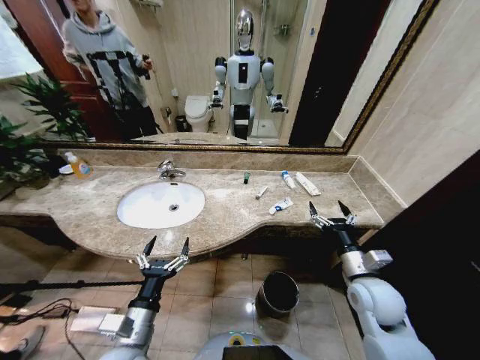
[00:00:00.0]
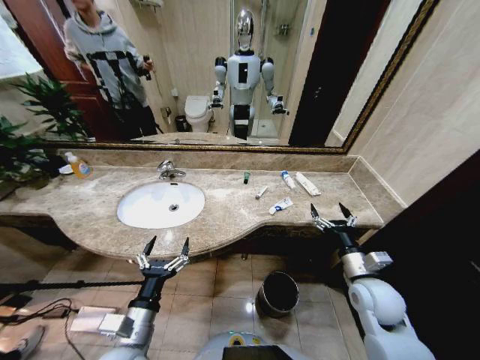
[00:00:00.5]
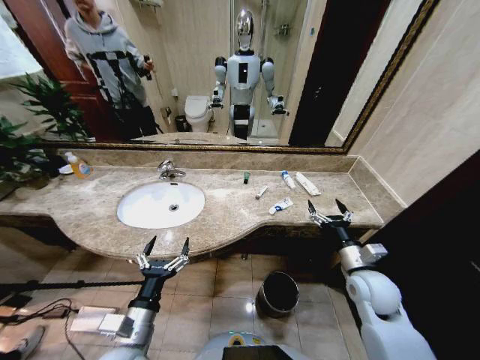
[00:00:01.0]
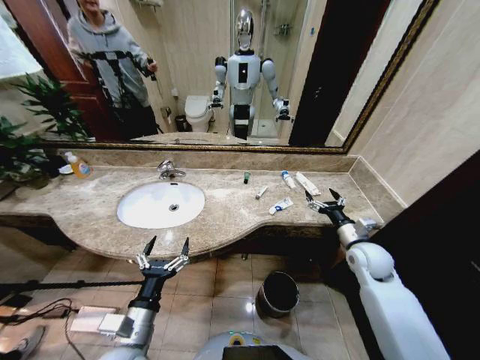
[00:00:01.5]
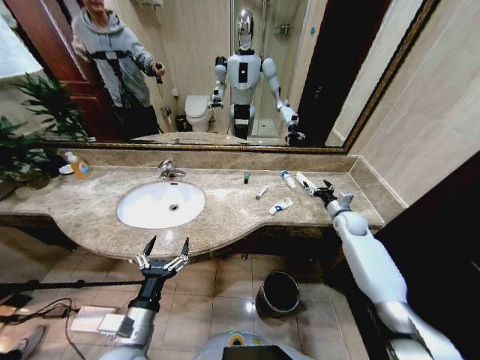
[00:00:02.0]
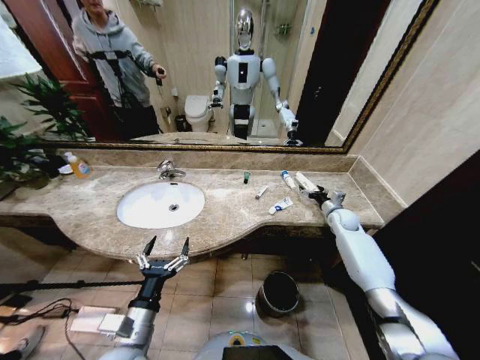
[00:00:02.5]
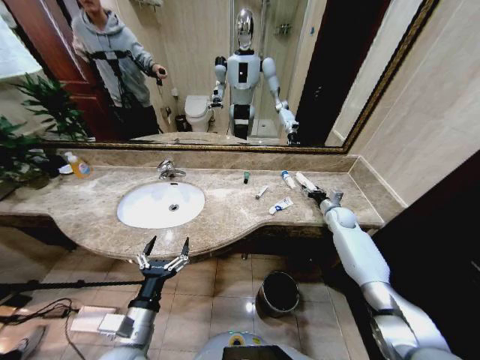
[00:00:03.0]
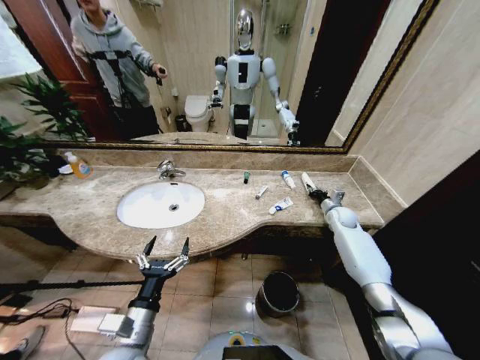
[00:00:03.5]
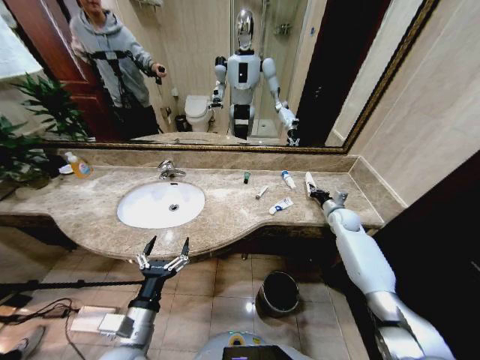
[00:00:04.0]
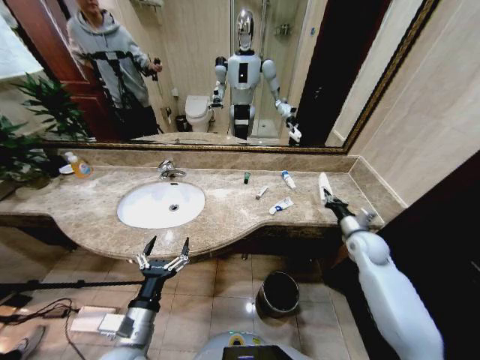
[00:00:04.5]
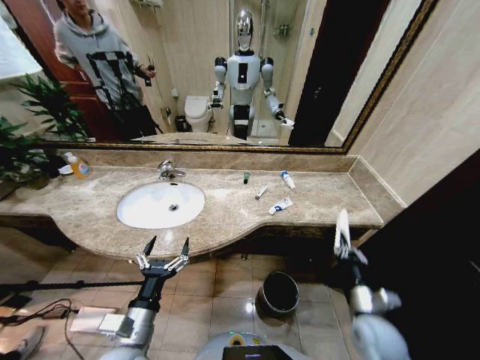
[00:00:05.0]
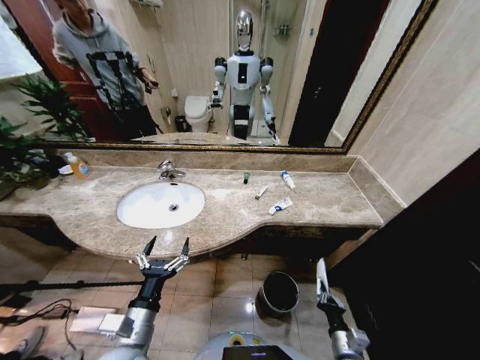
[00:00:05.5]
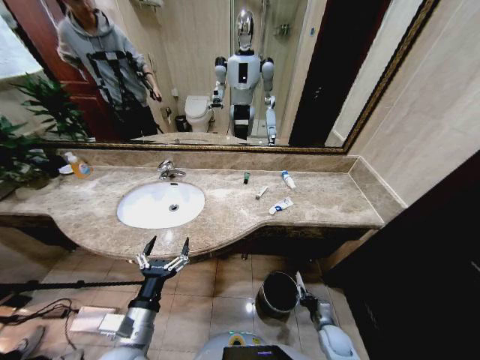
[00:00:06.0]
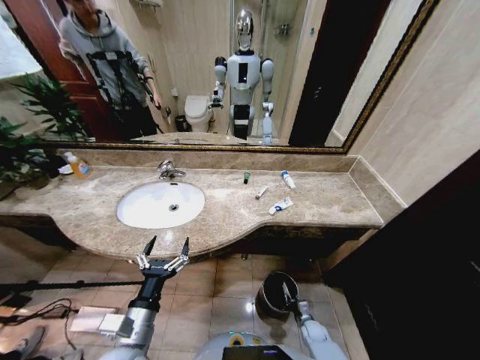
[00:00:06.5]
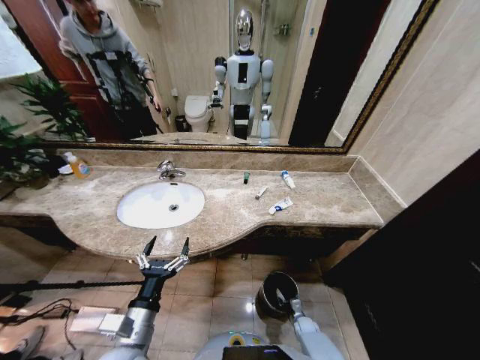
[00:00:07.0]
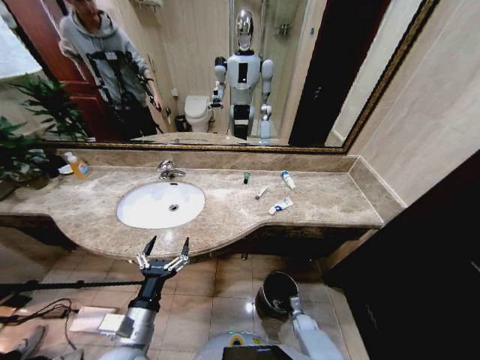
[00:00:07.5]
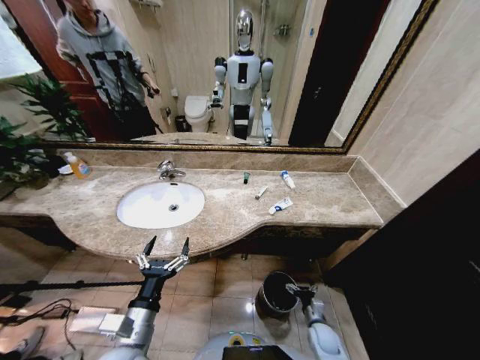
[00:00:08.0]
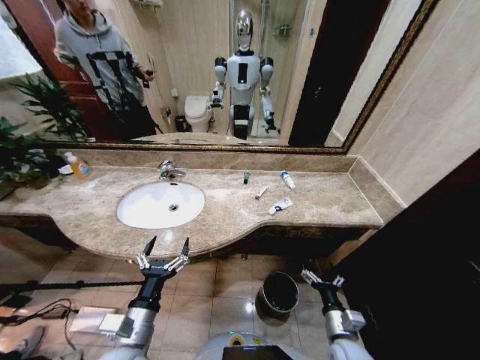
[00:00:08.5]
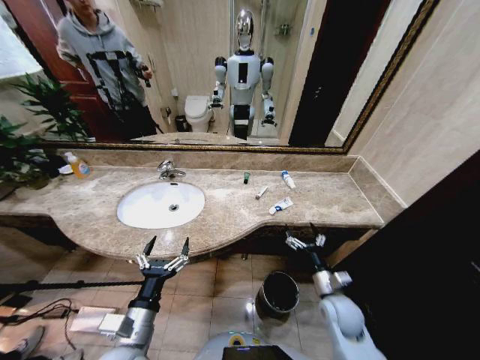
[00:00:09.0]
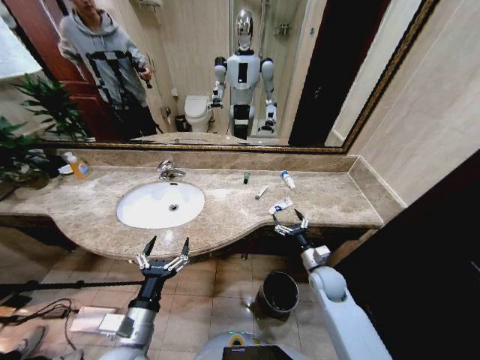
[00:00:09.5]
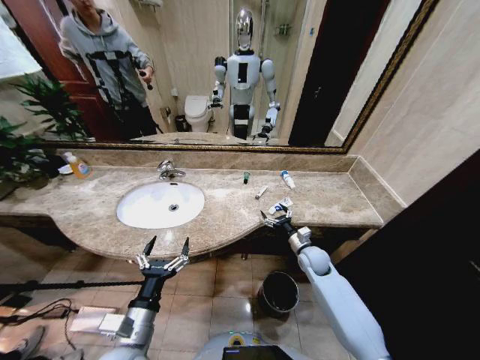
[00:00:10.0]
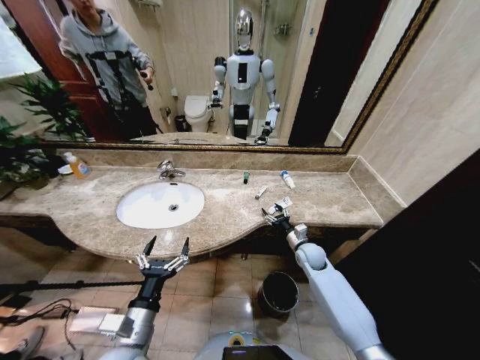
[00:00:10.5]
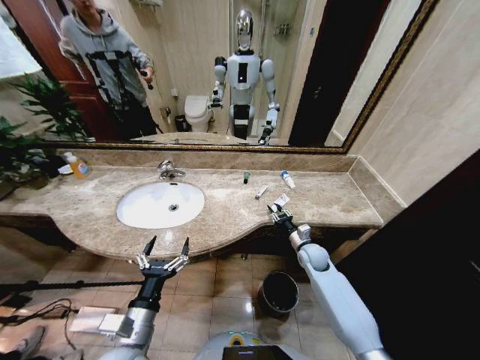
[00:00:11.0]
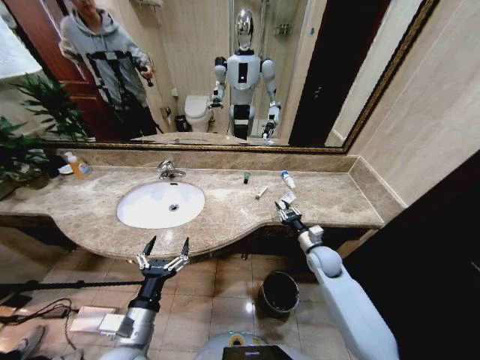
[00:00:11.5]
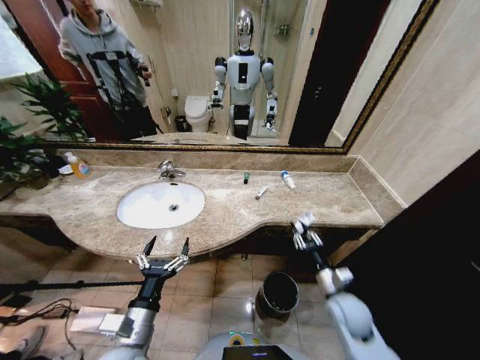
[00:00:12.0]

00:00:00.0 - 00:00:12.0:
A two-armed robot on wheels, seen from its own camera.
Task of the whole recording: Pick up the trash from the sink and place it in the trash bin.
00:00:02.0 - 00:00:04.0: The right gripper closes.
00:00:04.0 - 00:00:06.0: The right gripper travels backward and downward by about 40 cm.
00:00:06.0 - 00:00:08.0: The right gripper travels downward and back again, some 10 cm each way, and opens its fingers.
00:00:08.0 - 00:00:10.0: The right gripper is displaced forward and upward by about 25 cm.
00:00:10.0 - 00:00:12.0: The right gripper shifts approximately 15 cm backward, and closes its fingers.

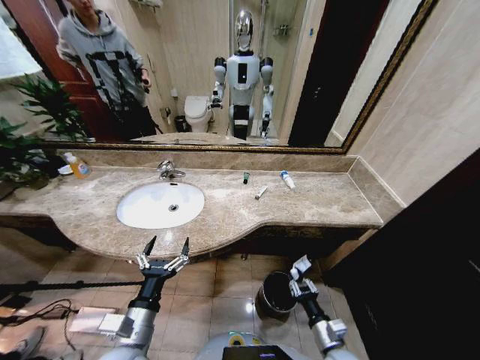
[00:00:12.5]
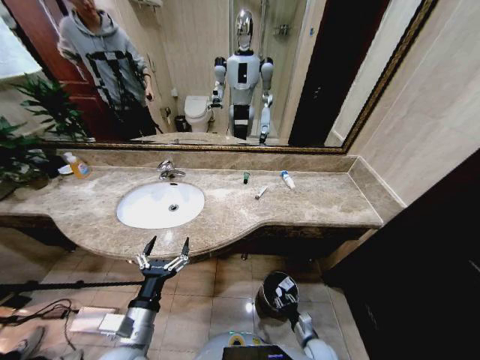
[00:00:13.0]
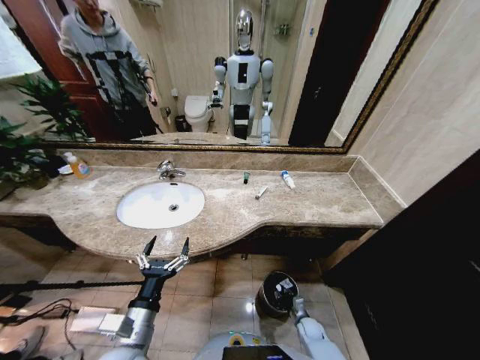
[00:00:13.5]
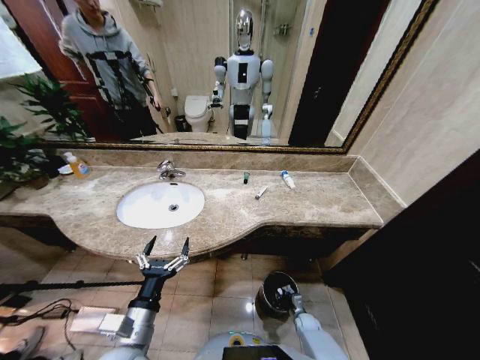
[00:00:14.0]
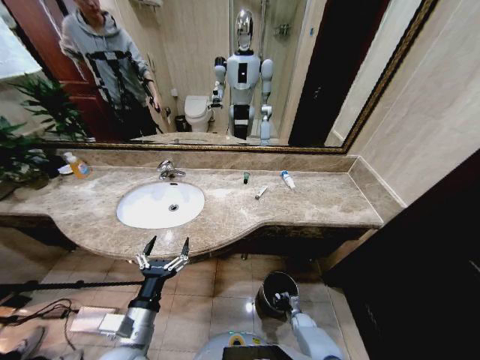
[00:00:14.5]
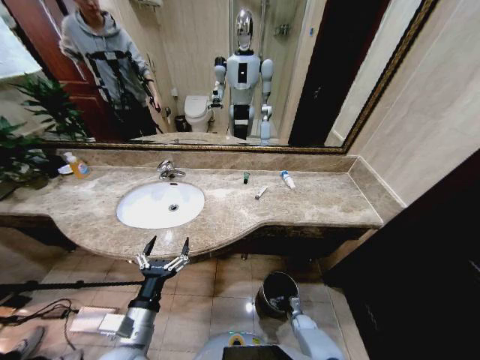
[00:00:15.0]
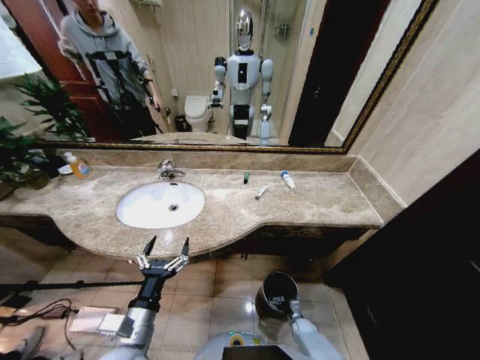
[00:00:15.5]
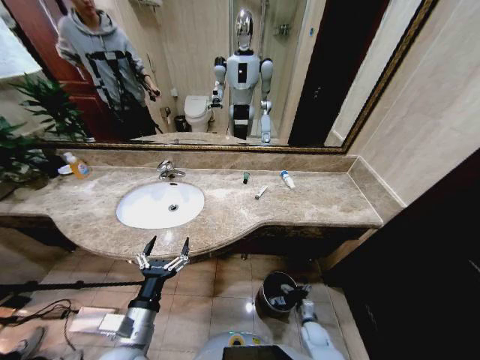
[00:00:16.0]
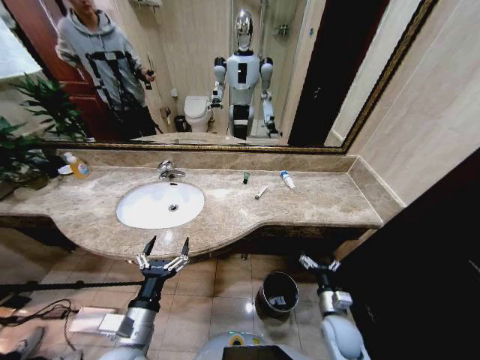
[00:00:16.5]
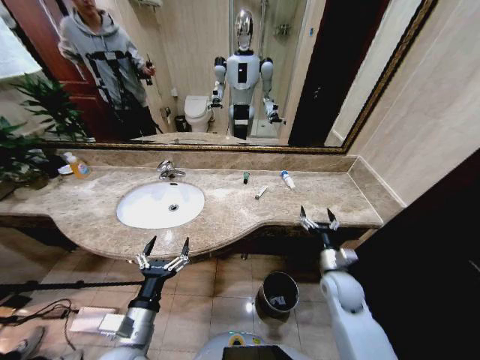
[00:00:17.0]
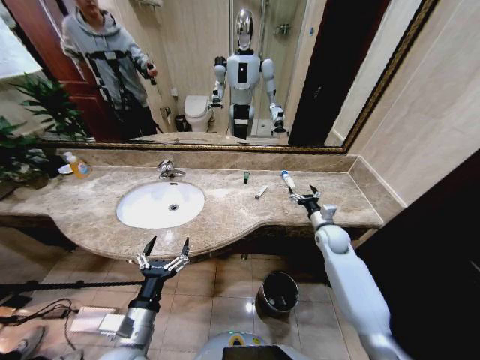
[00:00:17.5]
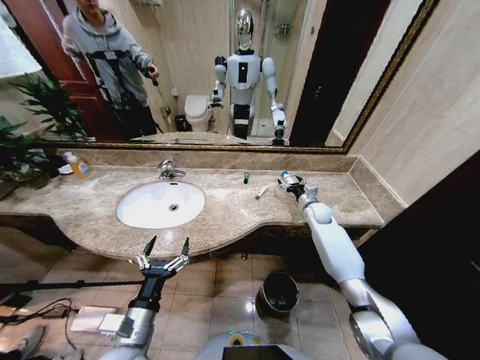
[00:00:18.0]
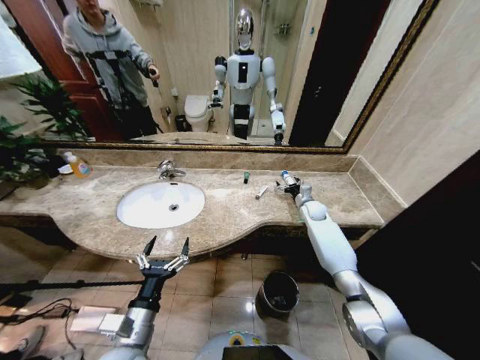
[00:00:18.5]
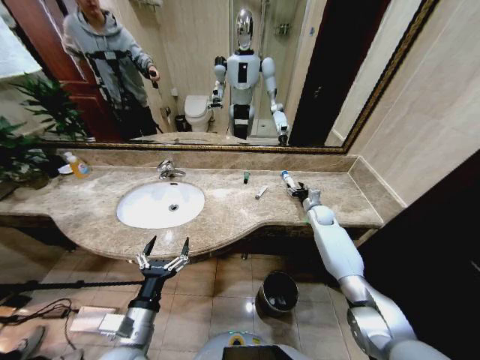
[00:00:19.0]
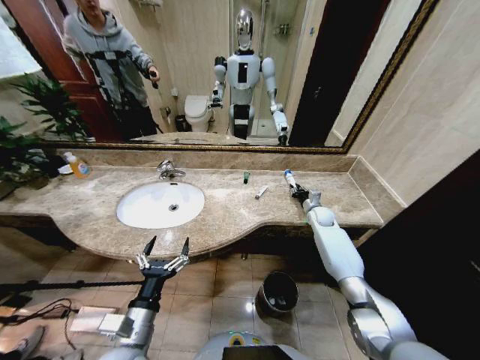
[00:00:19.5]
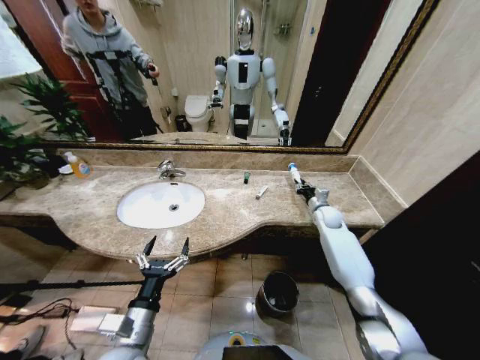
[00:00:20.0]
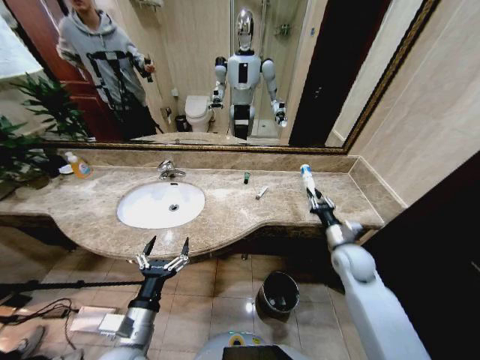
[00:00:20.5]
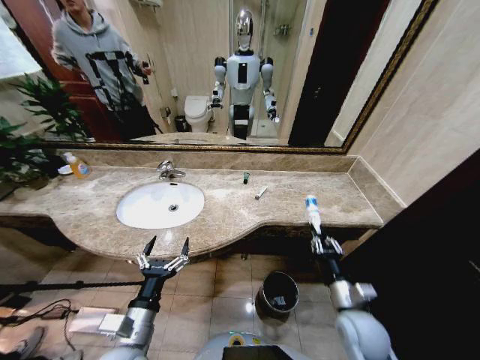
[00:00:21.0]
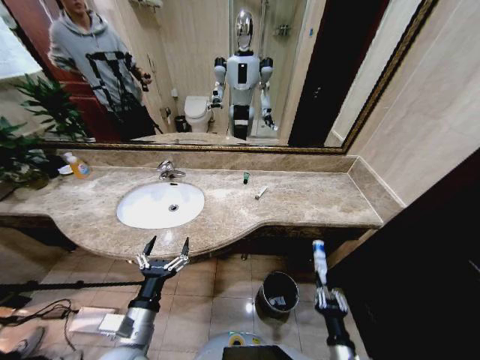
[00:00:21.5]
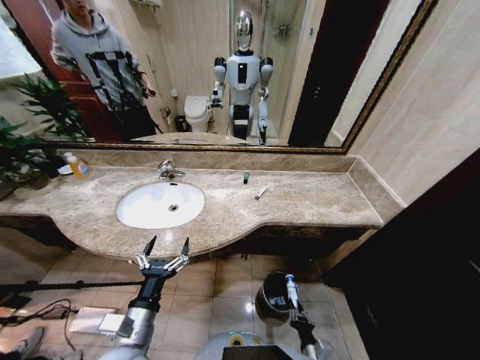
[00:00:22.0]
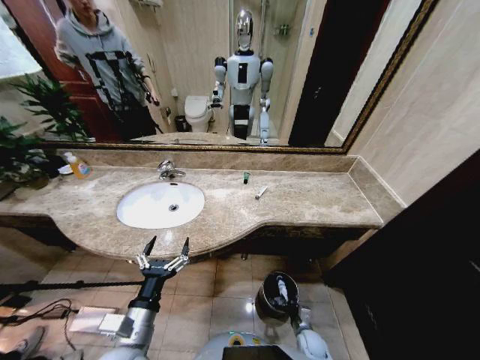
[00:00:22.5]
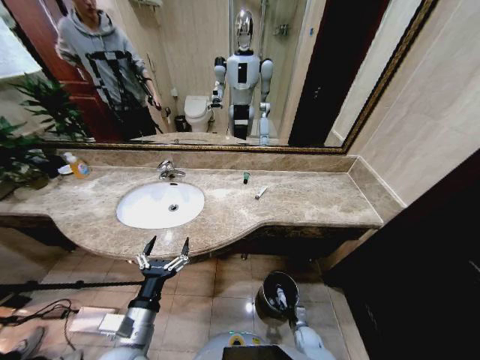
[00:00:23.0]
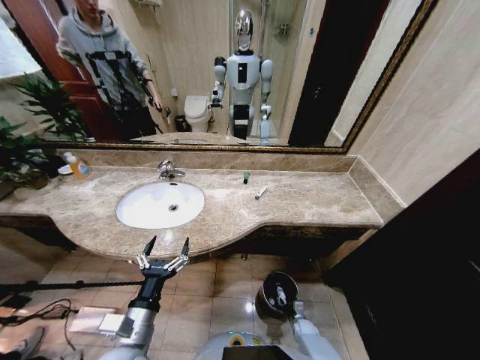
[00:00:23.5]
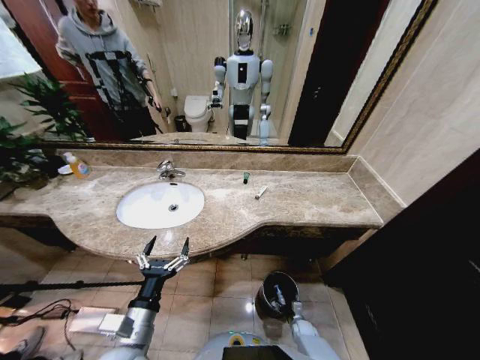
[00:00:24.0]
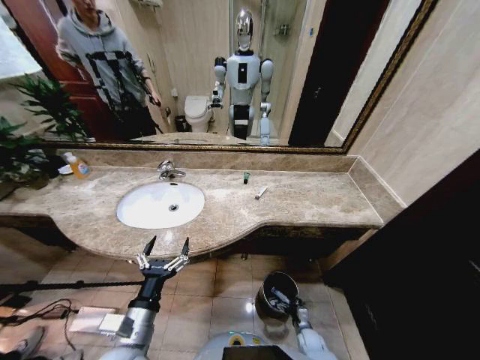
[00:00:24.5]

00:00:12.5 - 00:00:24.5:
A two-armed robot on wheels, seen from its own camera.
Task of the whole recording: Pick up the trash from the sink and place it in the trash bin.
00:00:12.5 - 00:00:14.5: The right gripper goes approximately 25 cm downward and forward.
00:00:14.5 - 00:00:16.5: The right gripper moves upward, approximately 25 cm, and opens its fingers.
00:00:16.5 - 00:00:18.5: The right gripper shifts roughly 35 cm forward.
00:00:18.5 - 00:00:20.5: The right gripper shifts approximately 20 cm backward, and closes up.
00:00:20.5 - 00:00:22.5: The right gripper goes about 35 cm downward and backward.
00:00:22.5 - 00:00:24.5: The right gripper moves downward, some 5 cm, and opens its fingers.

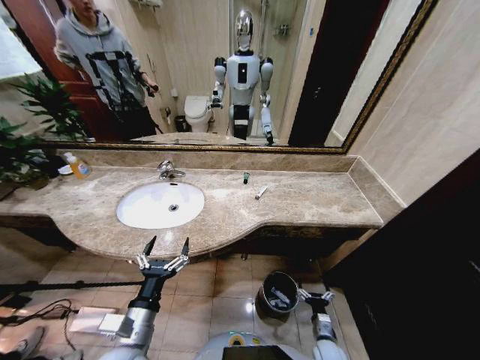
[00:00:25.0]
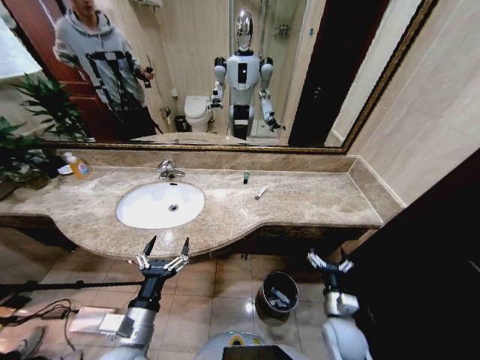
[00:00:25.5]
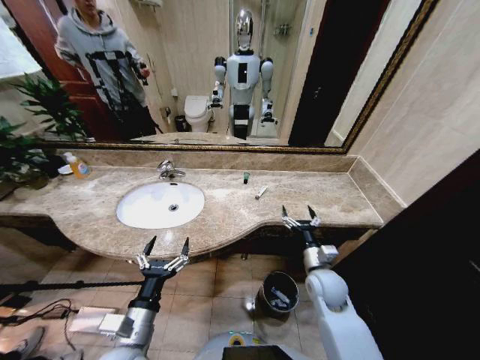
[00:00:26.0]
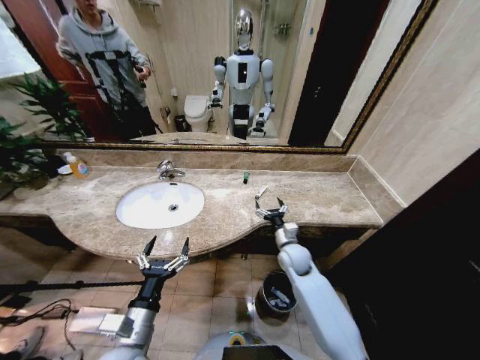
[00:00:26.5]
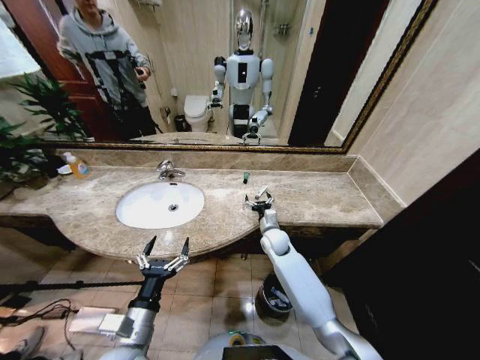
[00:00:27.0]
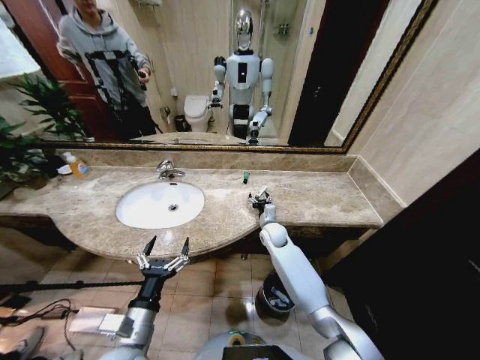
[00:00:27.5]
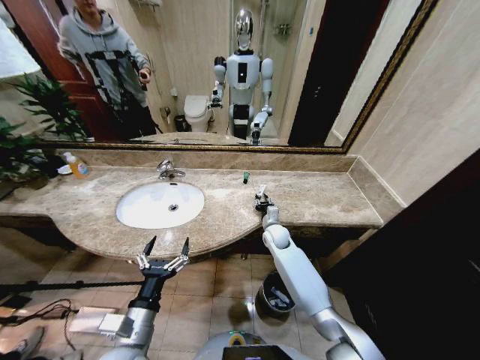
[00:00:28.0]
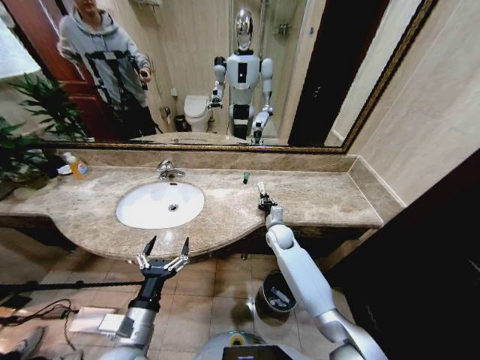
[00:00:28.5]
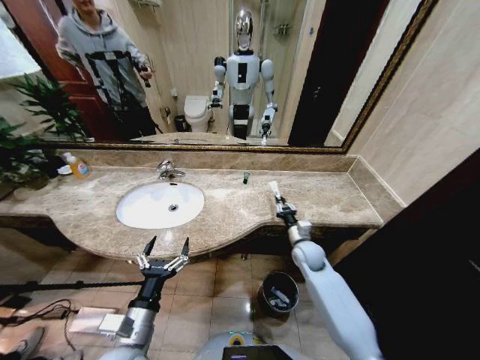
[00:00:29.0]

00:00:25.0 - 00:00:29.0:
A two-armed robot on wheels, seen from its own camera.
Task of the whole recording: Pick up the trash from the sink and place it in the trash bin.
00:00:25.0 - 00:00:27.0: The right gripper shifts about 40 cm forward, upward and to the left.
00:00:27.0 - 00:00:29.0: The right gripper heads to the right and backward, covering approximately 10 cm, and closes up.
